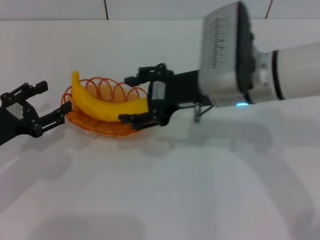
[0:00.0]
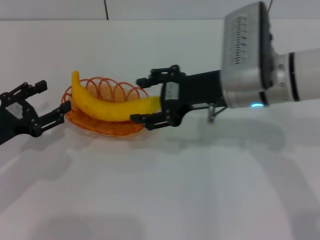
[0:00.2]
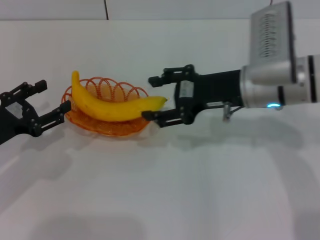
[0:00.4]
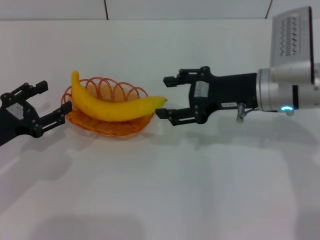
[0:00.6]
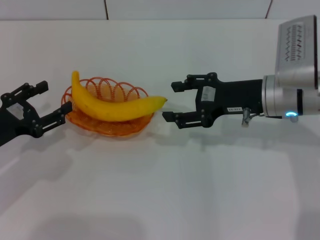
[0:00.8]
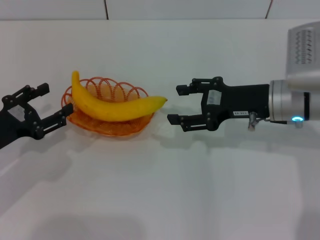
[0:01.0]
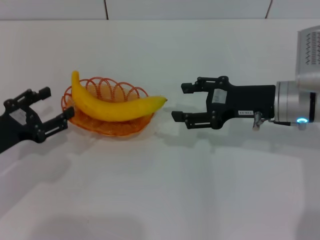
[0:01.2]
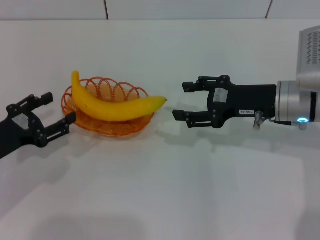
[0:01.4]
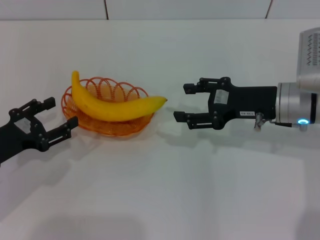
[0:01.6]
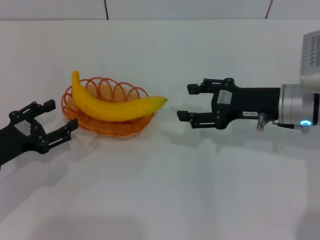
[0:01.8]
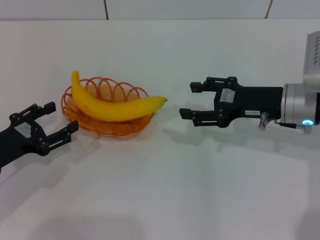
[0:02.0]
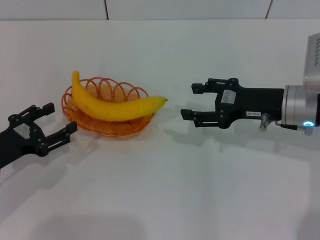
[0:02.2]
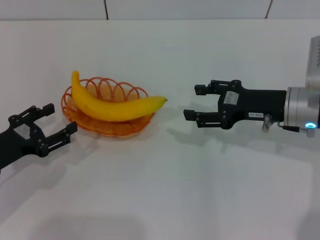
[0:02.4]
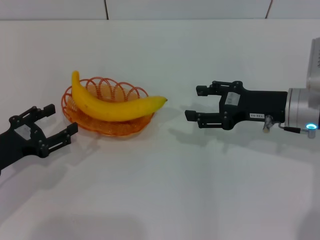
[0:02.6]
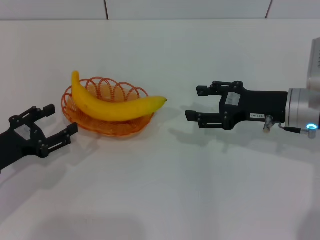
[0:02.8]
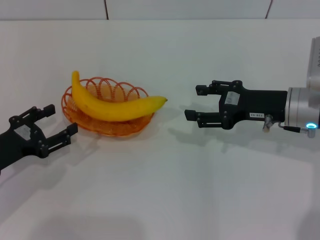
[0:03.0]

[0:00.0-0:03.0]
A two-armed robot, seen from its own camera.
0:00.0 to 0:01.6: The right gripper heads to the right and downward, covering approximately 10 cm.
0:01.6 to 0:03.0: The grippers make only small movements.
